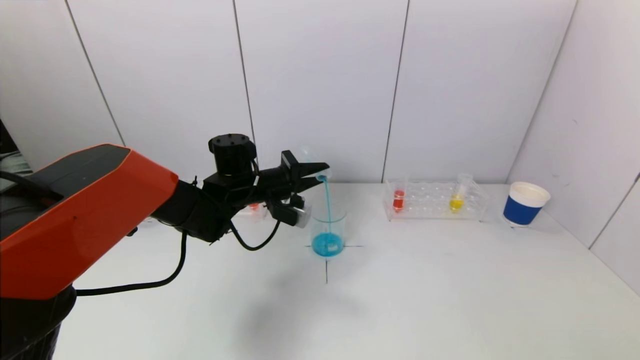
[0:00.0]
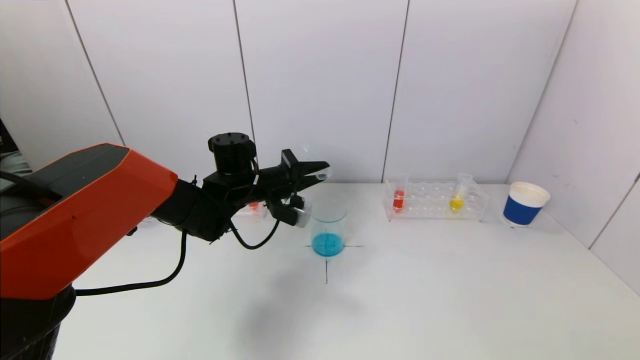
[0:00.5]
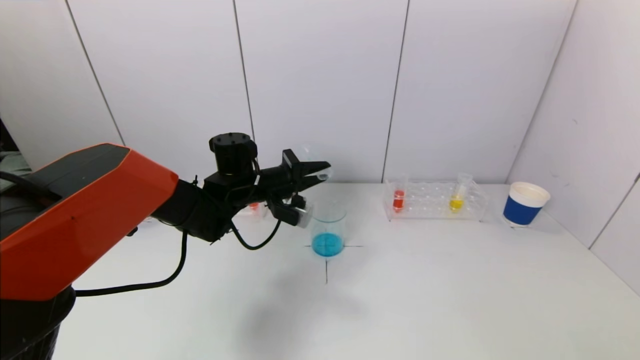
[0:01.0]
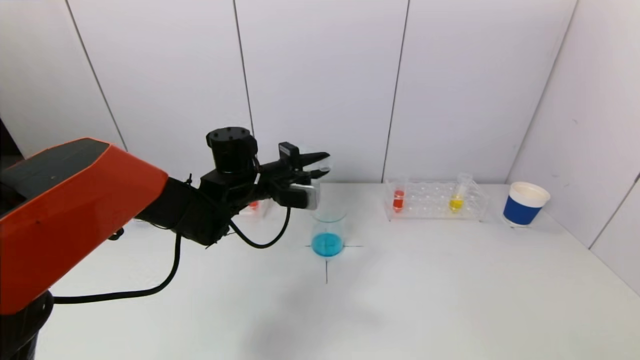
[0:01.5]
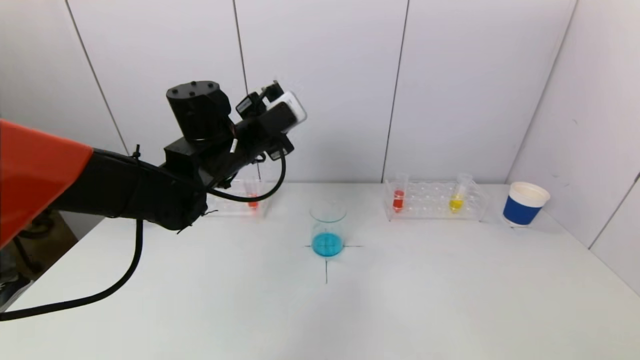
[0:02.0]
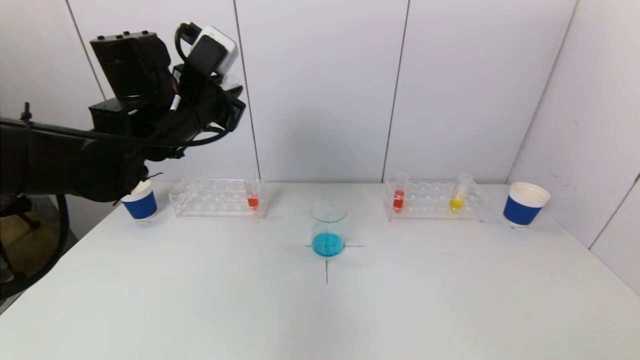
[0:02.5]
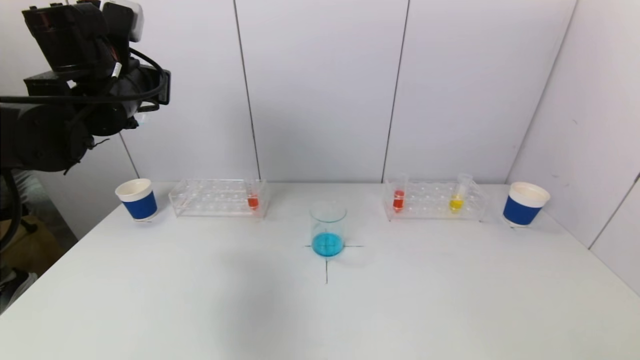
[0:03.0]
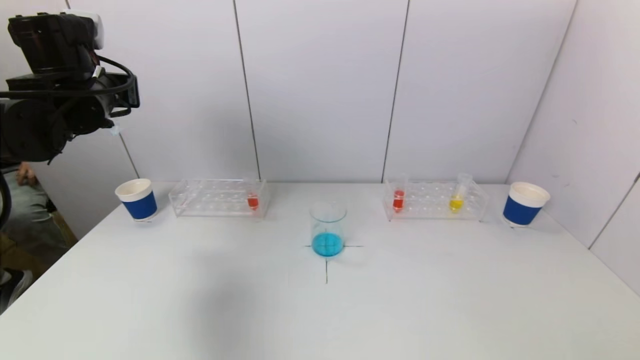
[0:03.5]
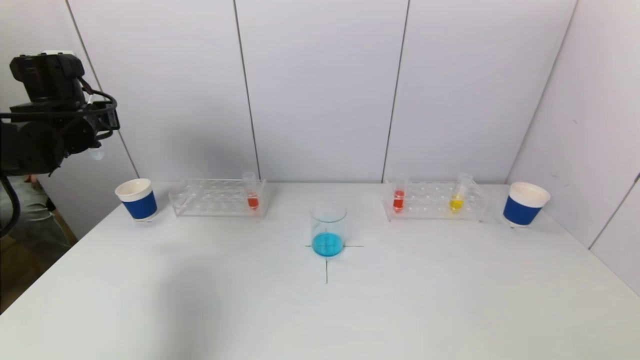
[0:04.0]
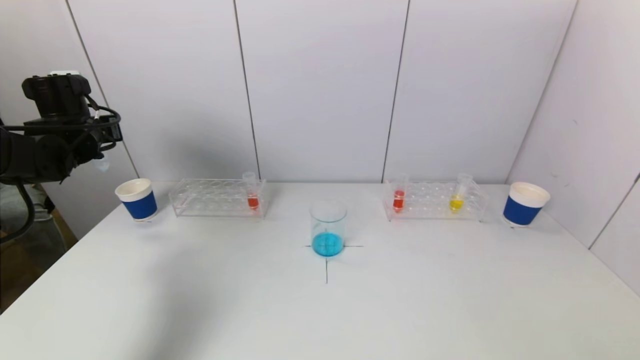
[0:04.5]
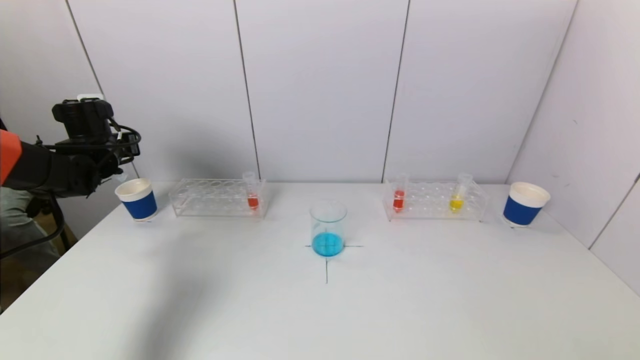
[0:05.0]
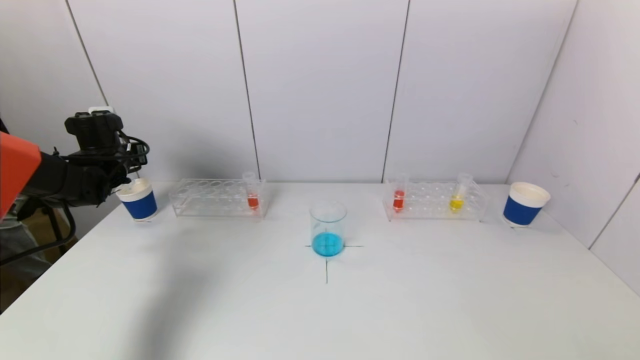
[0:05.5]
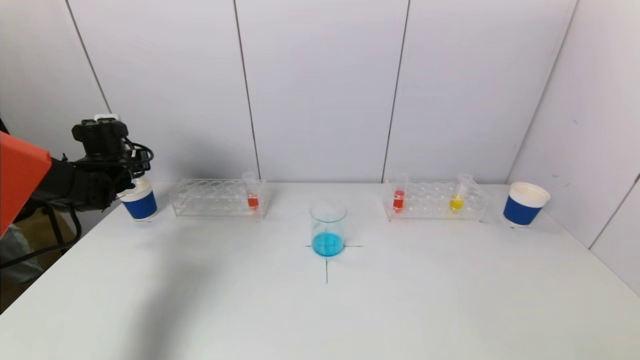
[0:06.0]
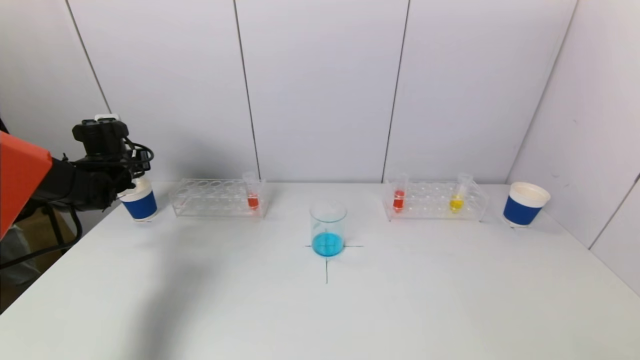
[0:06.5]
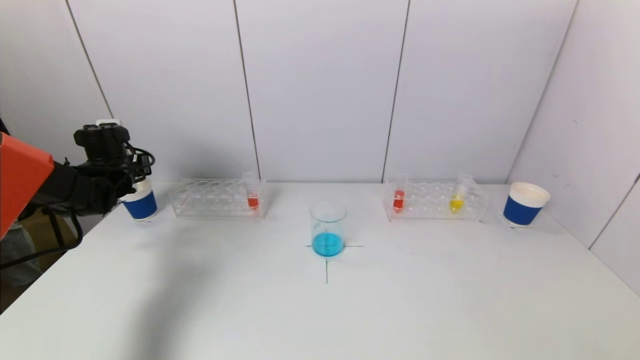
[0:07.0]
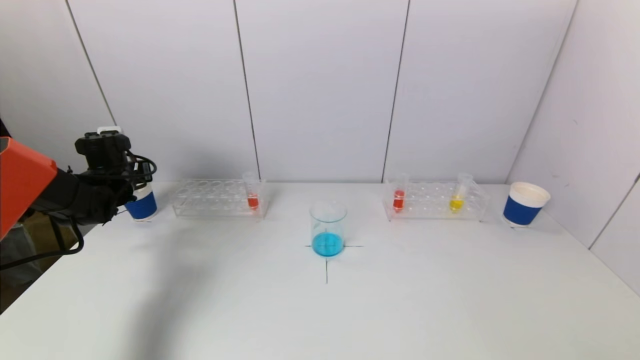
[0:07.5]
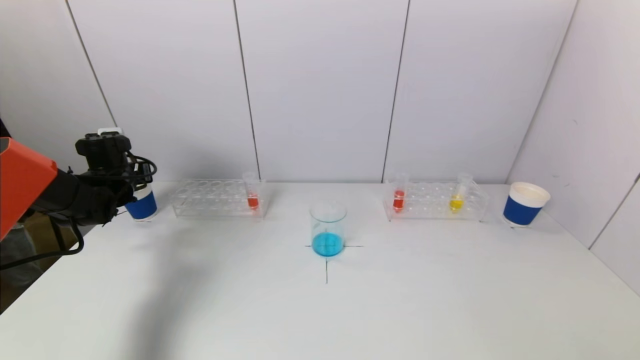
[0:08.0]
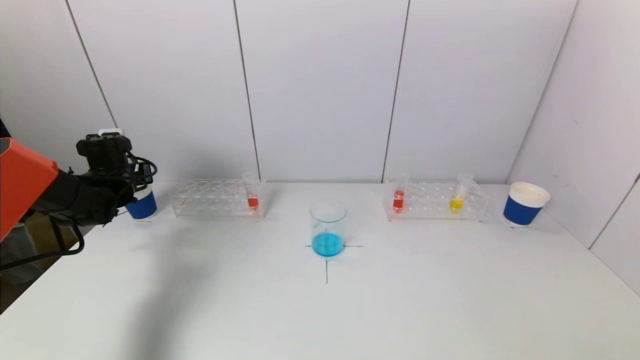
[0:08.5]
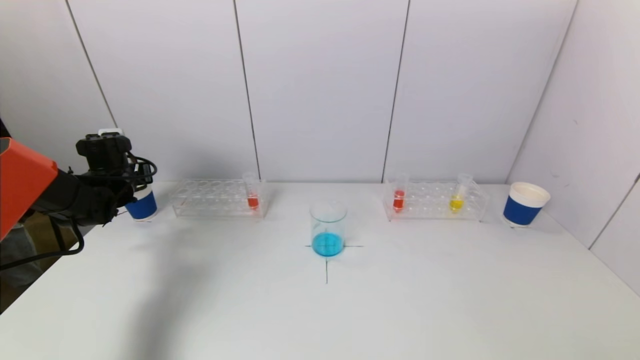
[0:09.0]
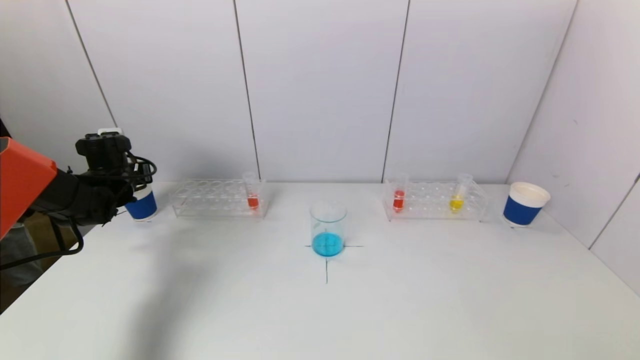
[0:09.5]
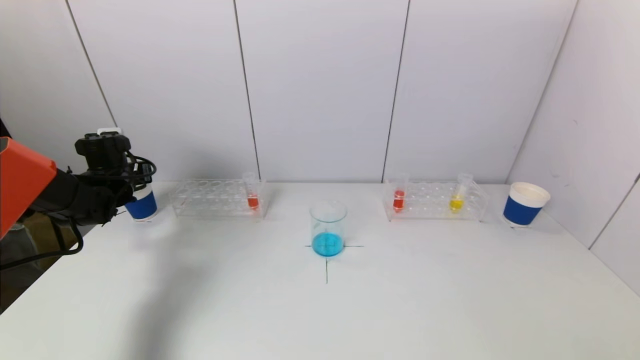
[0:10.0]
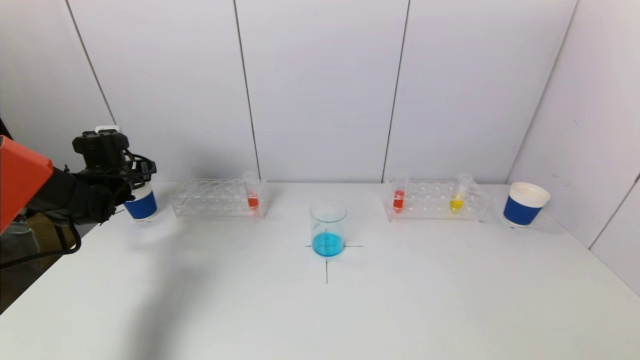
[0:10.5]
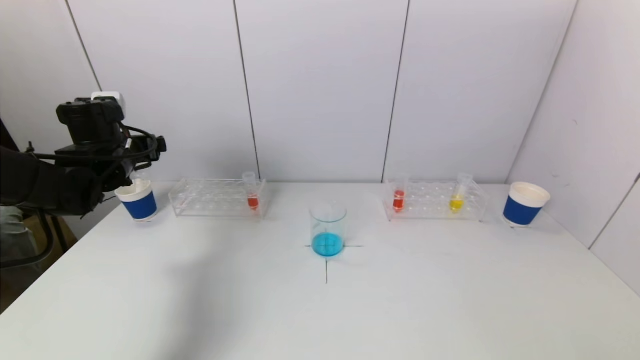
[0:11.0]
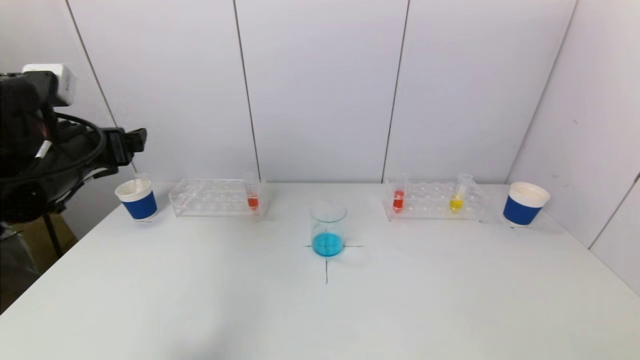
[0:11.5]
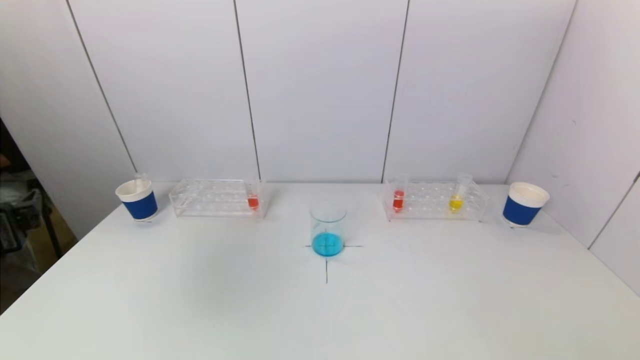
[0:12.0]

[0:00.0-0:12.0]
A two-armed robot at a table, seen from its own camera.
Task of the whole recording: pick up a test tube with pigment on left test tube rack and a test tube with pigment on right test tube rack by grippers and pour them into the beaker.
Step, 1.5 to 10.0 s: Place the test tube into the paper cup with the left gripper.
0.0 to 2.0 s: The left gripper travels upward and backward by roughly 10 cm.
2.0 to 4.0 s: The left gripper heads to the left, covering approximately 25 cm.
4.0 to 6.0 s: The left gripper goes approximately 15 cm downward and forward.
6.0 to 8.0 s: There are only small adjustments of the grippers.
10.0 to 12.0 s: The left gripper goes about 30 cm backward.

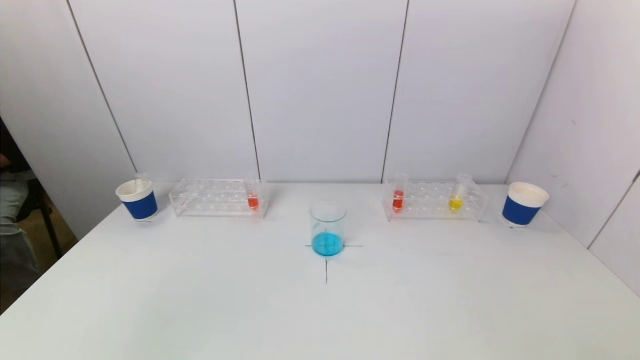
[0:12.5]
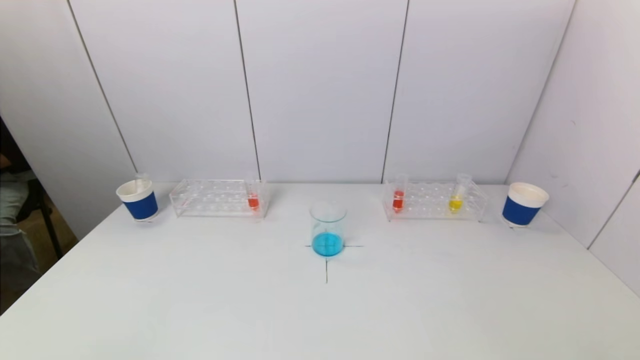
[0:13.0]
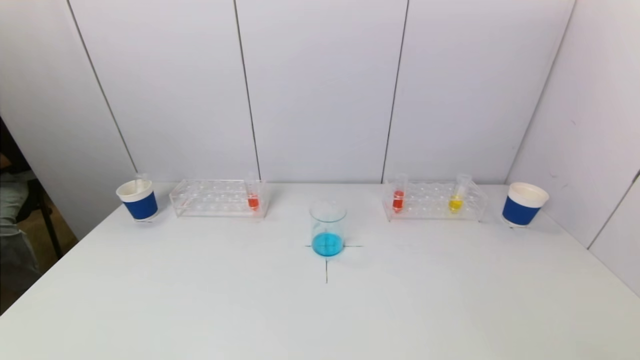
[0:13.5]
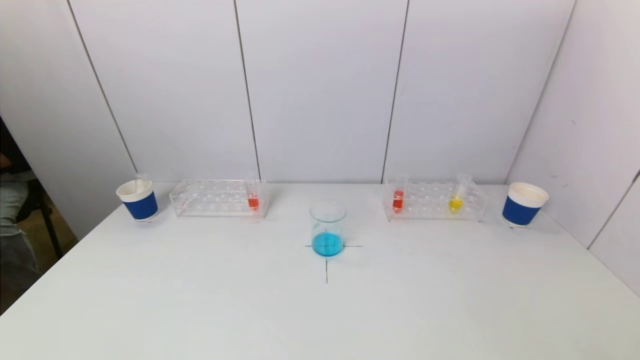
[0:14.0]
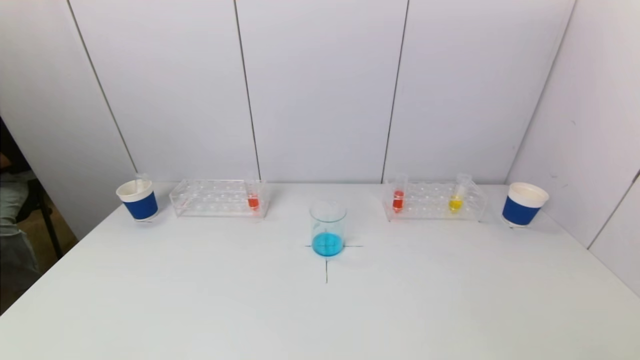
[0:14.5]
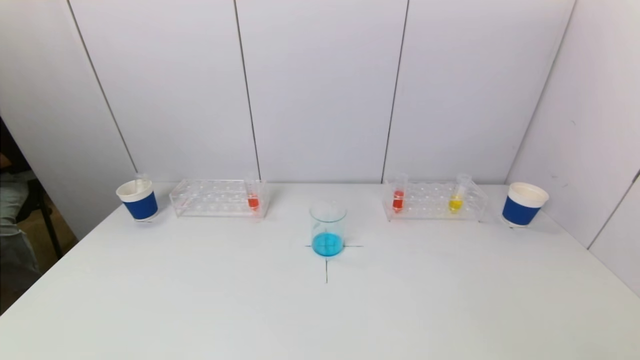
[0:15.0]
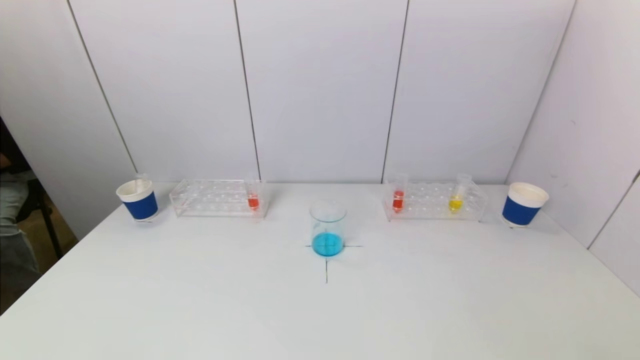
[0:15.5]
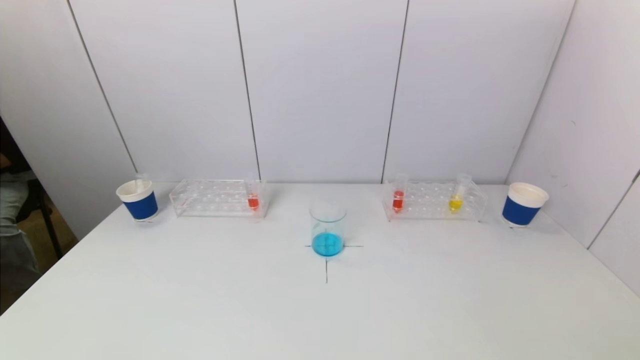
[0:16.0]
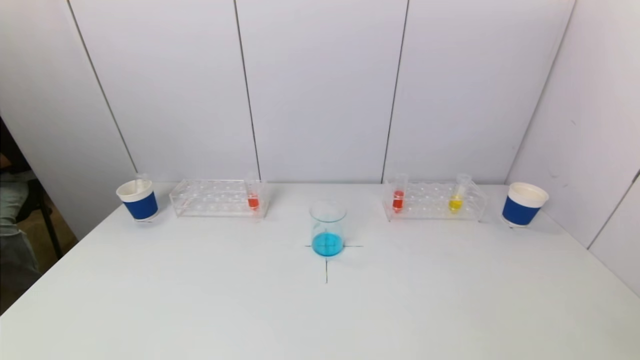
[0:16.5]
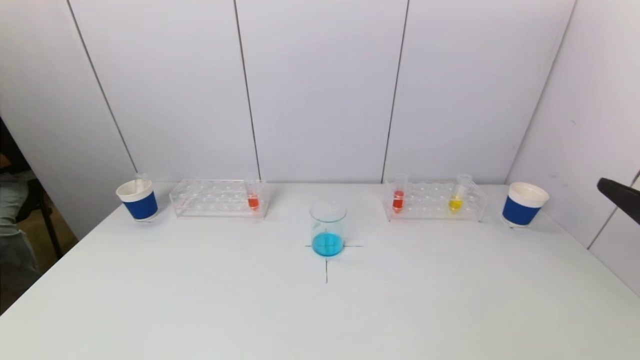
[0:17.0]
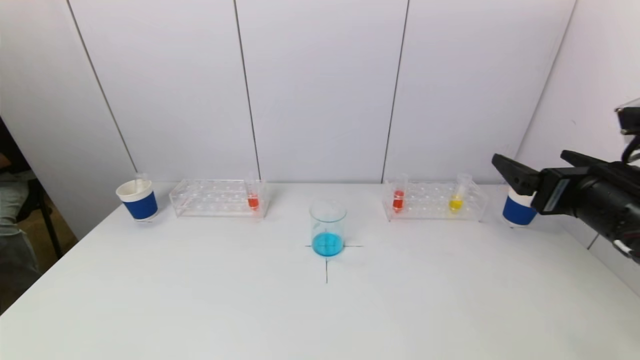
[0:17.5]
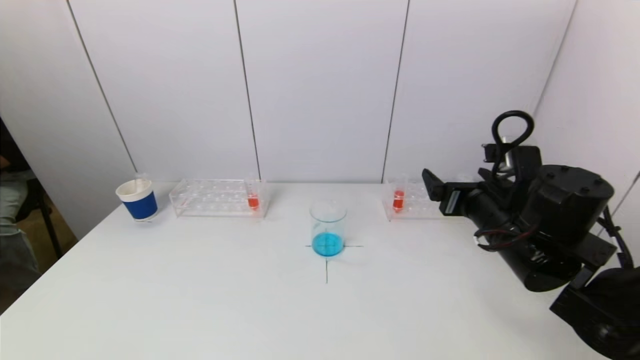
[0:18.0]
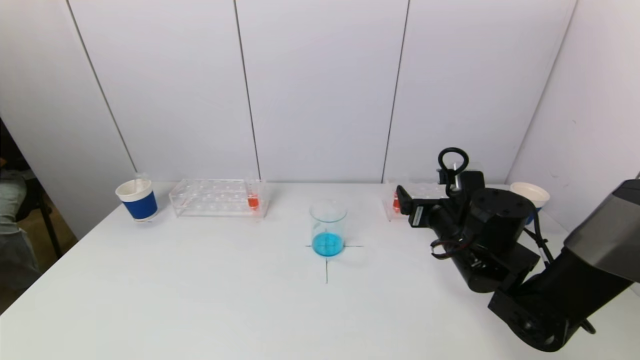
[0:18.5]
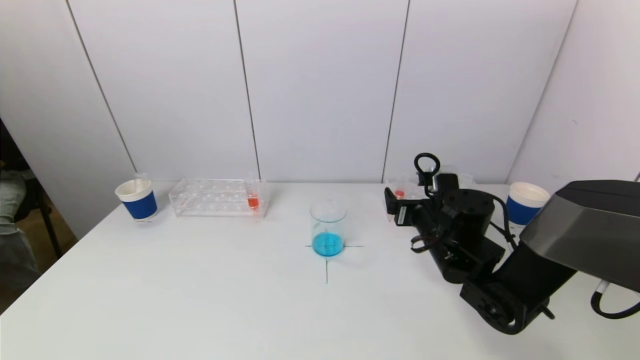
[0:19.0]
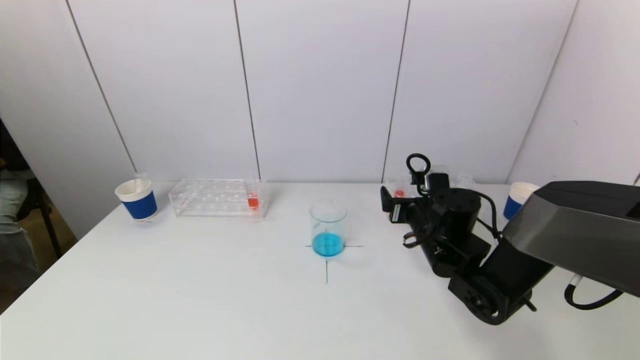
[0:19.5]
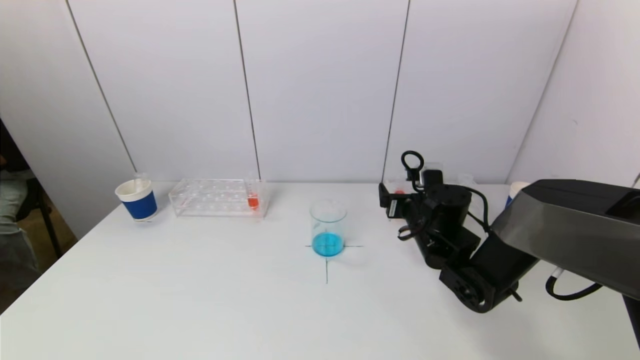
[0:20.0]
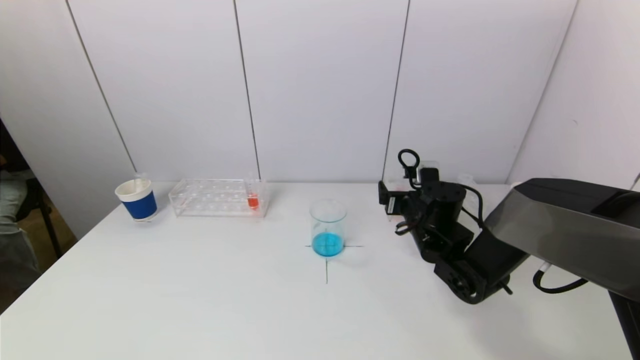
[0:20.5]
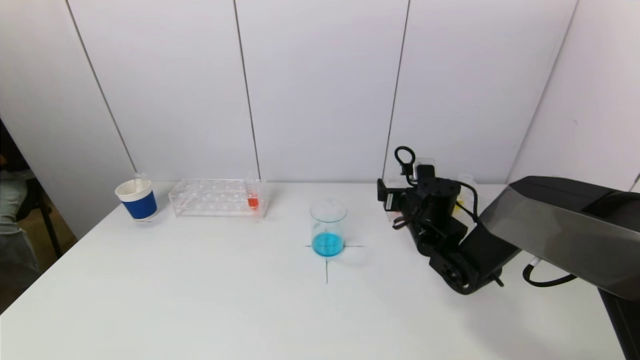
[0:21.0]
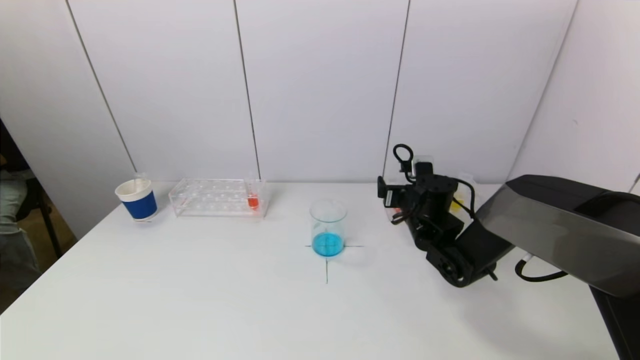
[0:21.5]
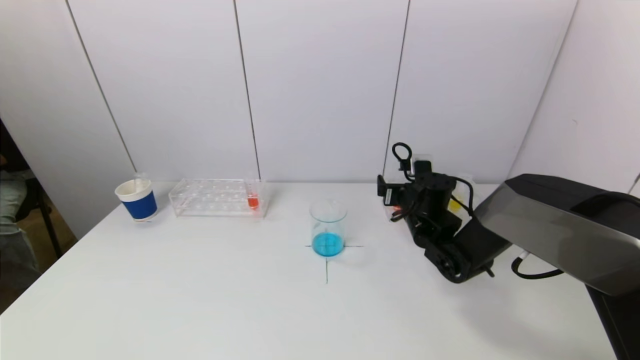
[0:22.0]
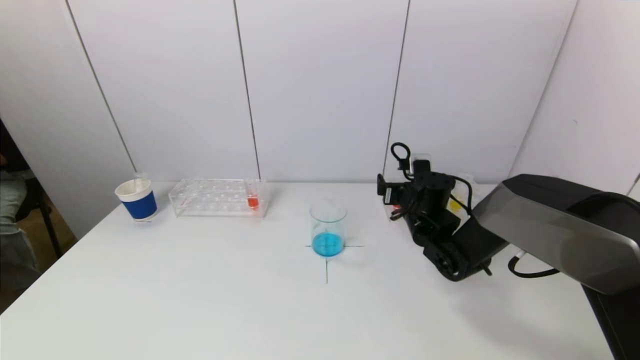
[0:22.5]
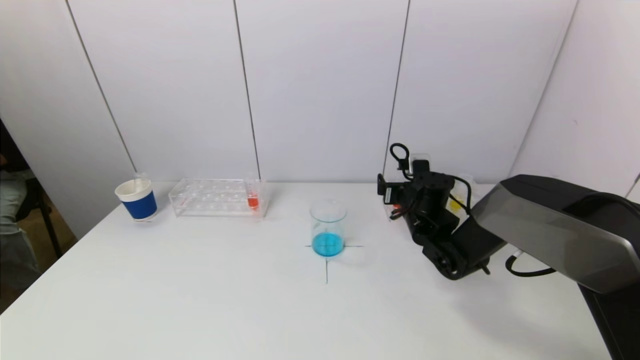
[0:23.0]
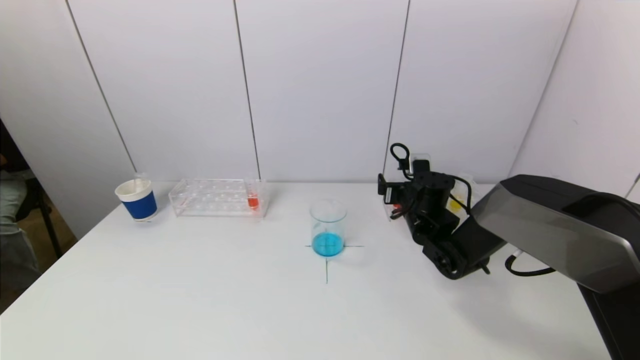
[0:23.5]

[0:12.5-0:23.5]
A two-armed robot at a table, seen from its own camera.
Task of the whole recording: pick up a test tube with pigment on left test tube rack and a test tube with pigment on right test tube rack by grippers and pour them into the beaker.
16.0 to 18.0 s: The right gripper moves forward and to the left, approximately 35 cm.
18.0 to 20.0 s: The right gripper is displaced forward and downward by some 15 cm.
20.0 to 23.5 s: The grippers move only a little.
